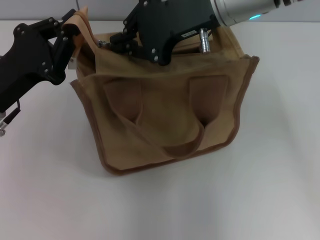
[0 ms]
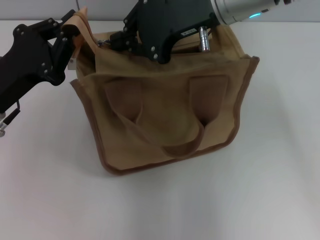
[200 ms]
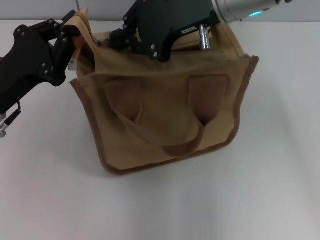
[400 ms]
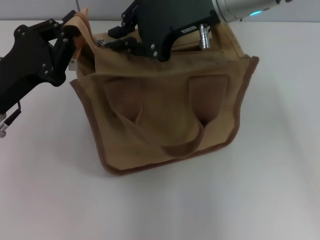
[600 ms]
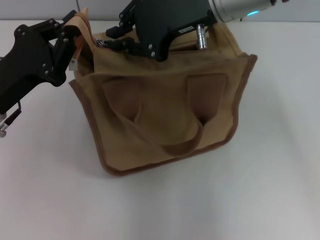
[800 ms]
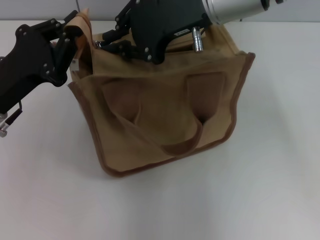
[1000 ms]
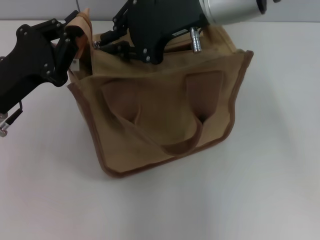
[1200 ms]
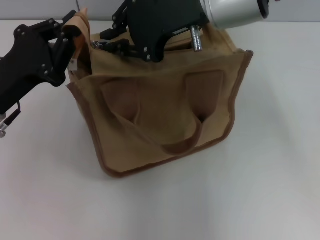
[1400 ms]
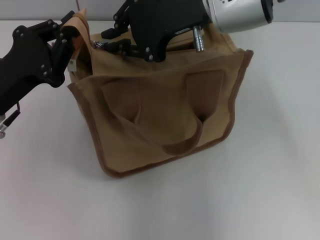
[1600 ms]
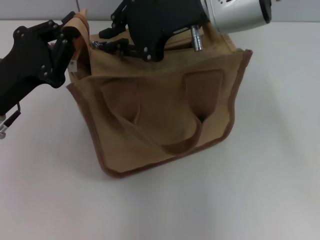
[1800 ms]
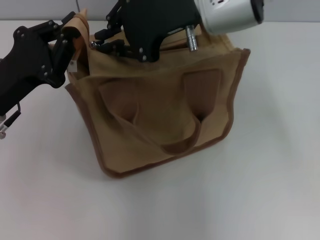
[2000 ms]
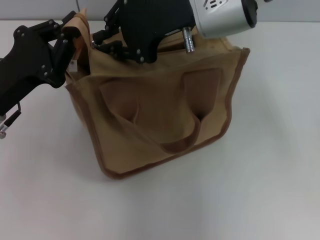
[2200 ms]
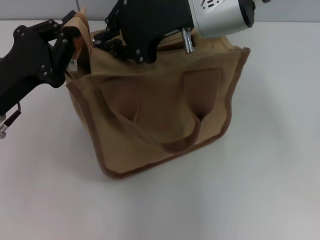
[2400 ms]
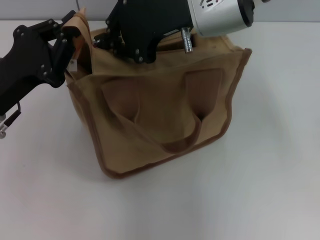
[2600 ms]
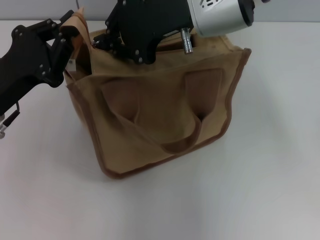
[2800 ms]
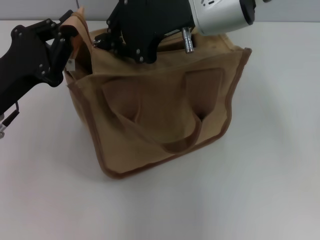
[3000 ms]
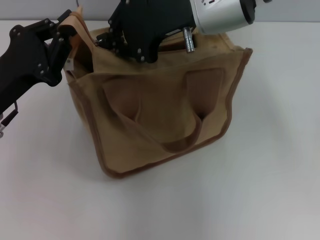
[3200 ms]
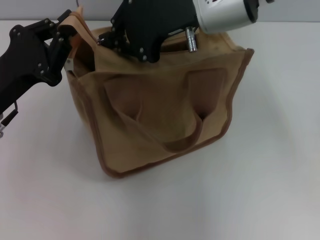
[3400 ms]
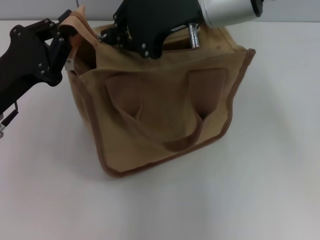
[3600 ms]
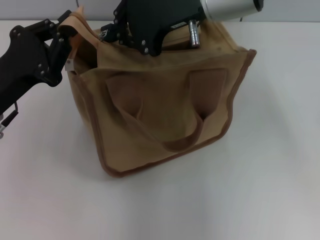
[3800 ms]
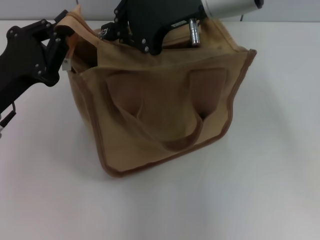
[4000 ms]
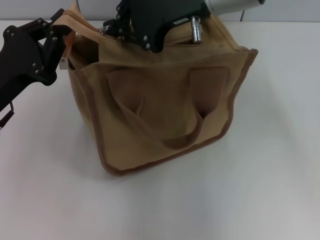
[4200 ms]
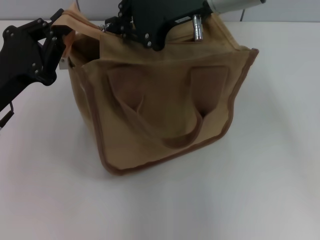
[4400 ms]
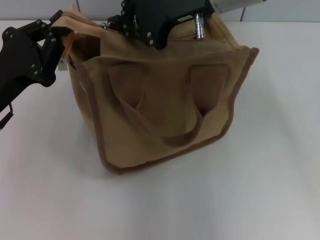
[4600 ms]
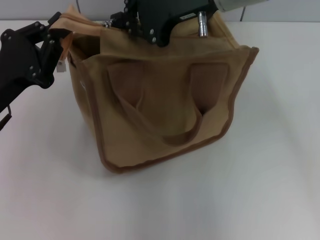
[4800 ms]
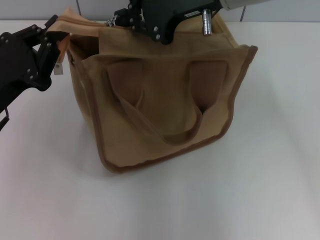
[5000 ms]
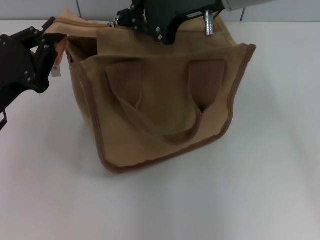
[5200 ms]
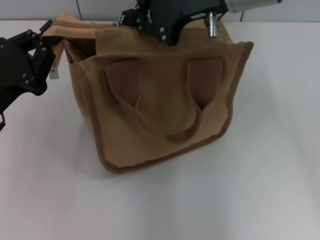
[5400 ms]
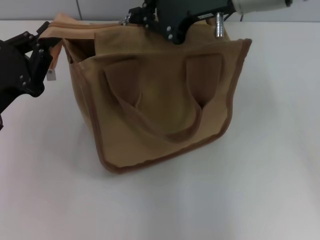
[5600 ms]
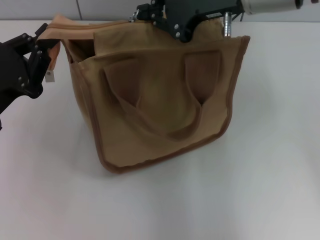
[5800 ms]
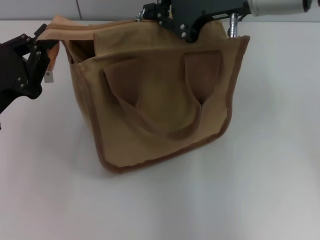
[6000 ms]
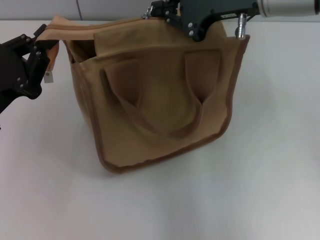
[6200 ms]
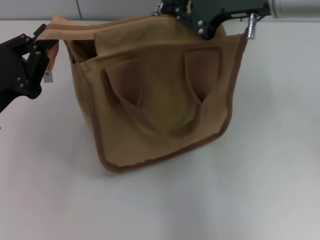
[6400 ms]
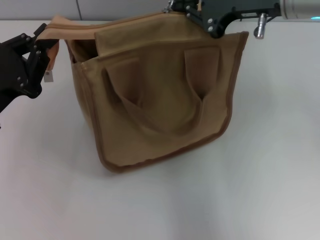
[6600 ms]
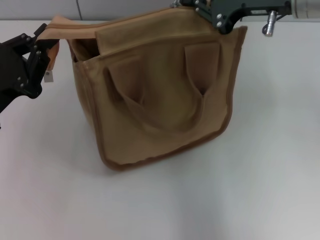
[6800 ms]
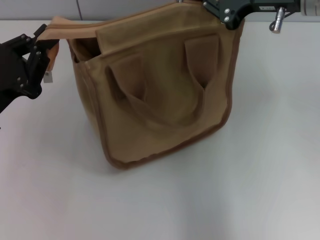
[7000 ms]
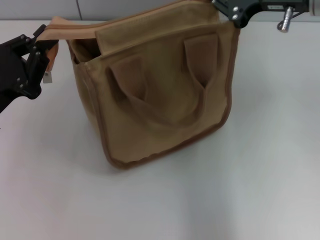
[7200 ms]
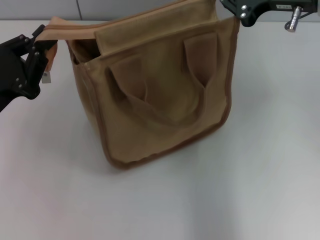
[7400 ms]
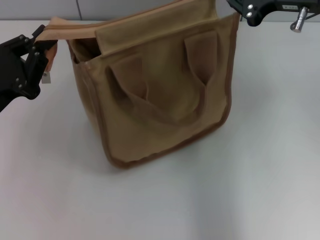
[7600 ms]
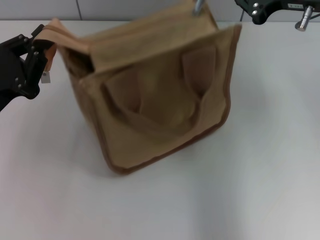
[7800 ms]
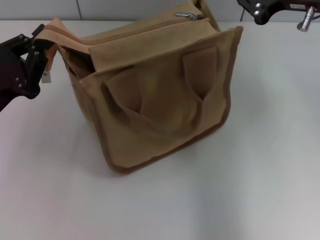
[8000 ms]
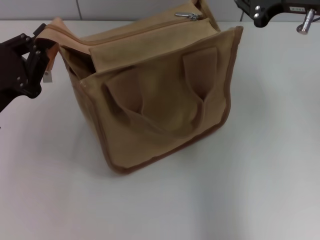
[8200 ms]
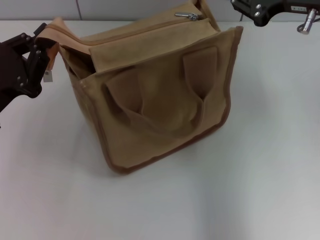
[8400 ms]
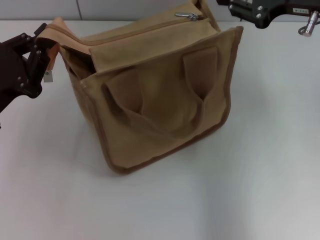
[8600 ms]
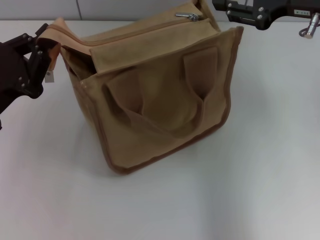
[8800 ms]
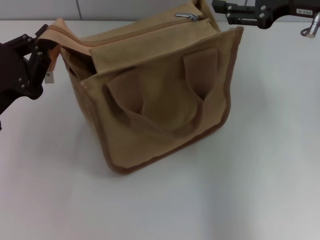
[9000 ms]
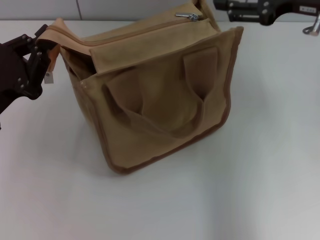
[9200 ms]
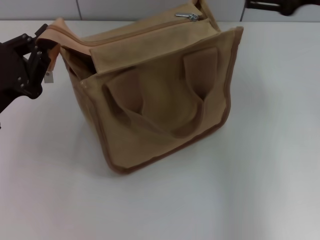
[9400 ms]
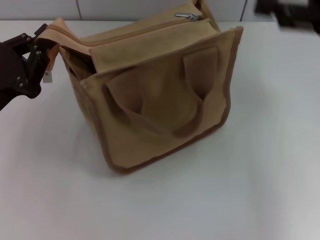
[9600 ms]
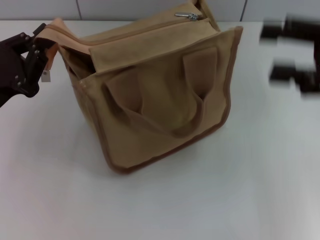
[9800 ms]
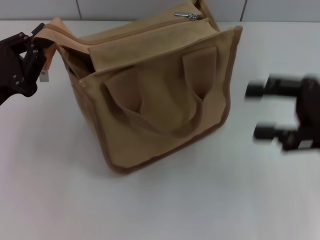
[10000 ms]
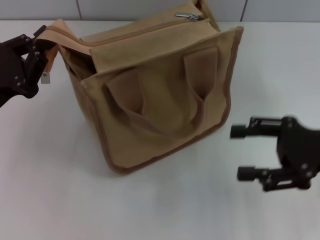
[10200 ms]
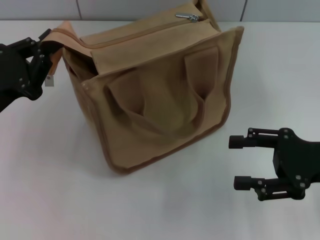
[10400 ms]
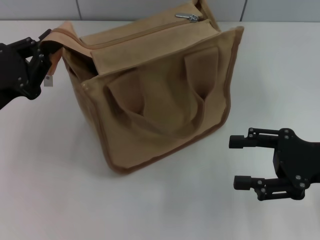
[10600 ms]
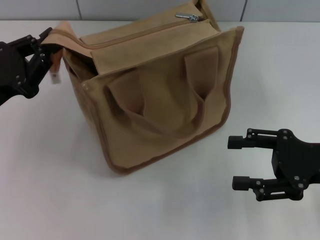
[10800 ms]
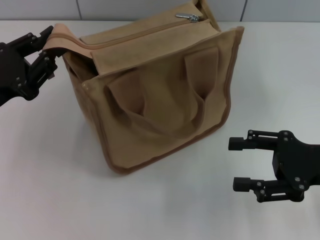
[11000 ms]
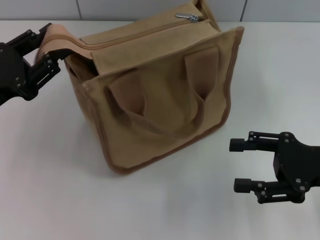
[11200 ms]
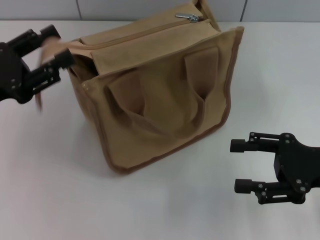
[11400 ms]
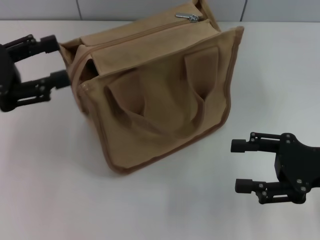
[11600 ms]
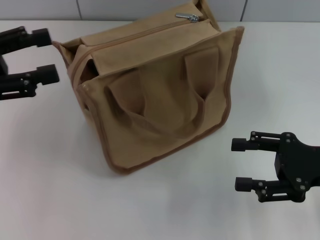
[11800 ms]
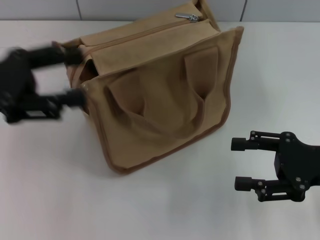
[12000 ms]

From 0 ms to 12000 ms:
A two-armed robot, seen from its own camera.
Step, from 0 ms to 7600 ms: Pull up the zipper with your right hand.
Step, from 8000 ms to 11400 ms: Grab the zipper with your left hand.
From 0 ms to 1600 ms: The grippers stay close to where they were, moving slightly.
From 1600 ms to 3000 ms: Neither gripper changes place.
From 3000 ms to 4400 ms: The grippers move only a little.
From 4400 ms to 6000 ms: The right gripper ends up approximately 5 cm from where it was.
From 6000 ms to 7600 ms: The right gripper heads to the right, covering about 10 cm.
From 7600 ms to 9000 ms: The right gripper opens up.
From 9000 ms to 10400 ms: The right gripper shifts approximately 15 cm downward and backward.
From 10400 ms to 12000 ms: The left gripper goes roughly 10 cm upward, and opens up.

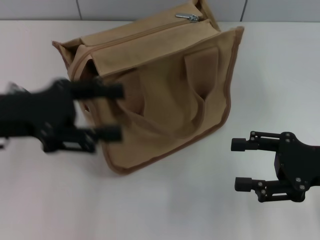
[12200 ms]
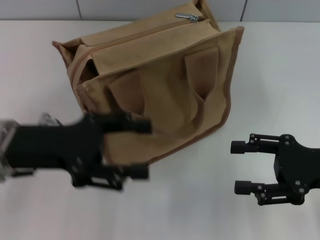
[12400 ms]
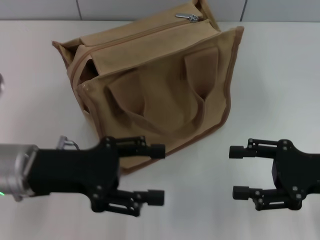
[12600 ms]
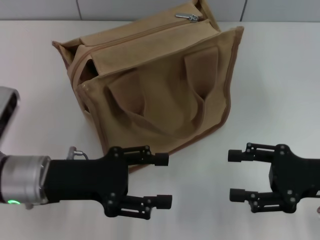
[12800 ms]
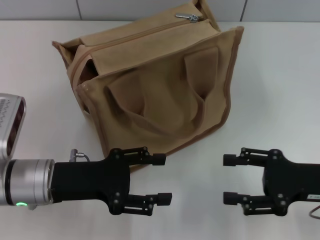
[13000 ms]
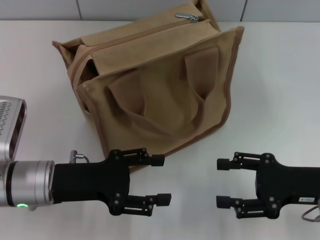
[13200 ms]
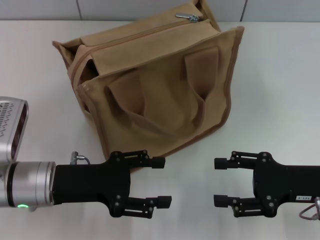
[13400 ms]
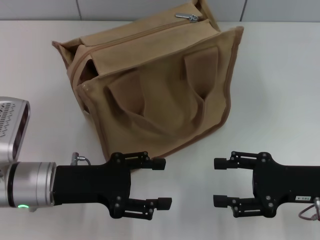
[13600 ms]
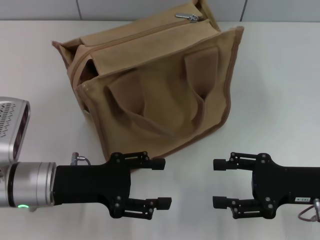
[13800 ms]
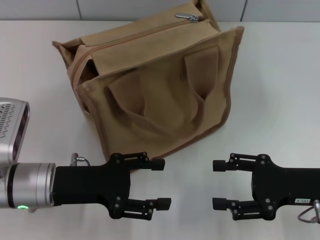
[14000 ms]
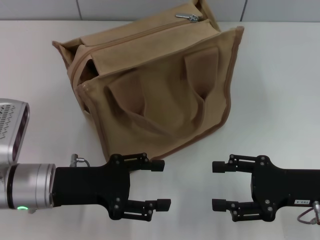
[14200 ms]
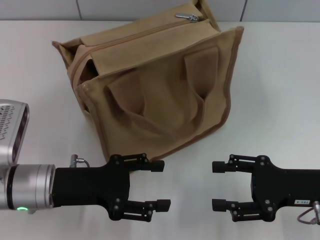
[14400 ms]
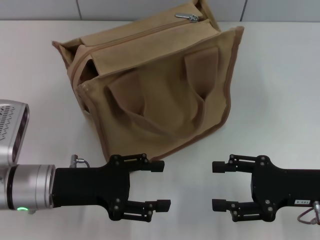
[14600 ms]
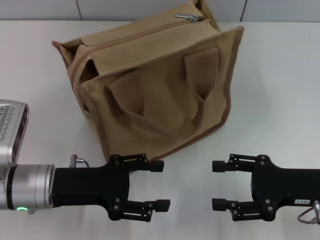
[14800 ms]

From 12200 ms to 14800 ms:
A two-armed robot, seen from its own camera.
From 12200 ms to 13400 ms: The left gripper shifts about 10 cm downward and to the right.
From 13400 ms to 14800 ms: Both grippers stay about where they are.

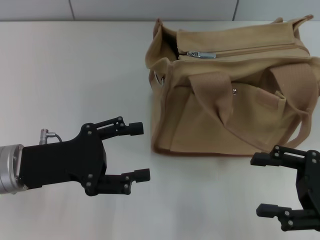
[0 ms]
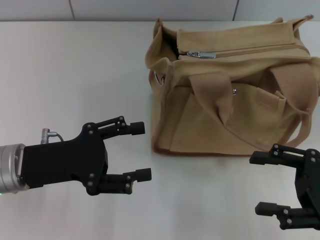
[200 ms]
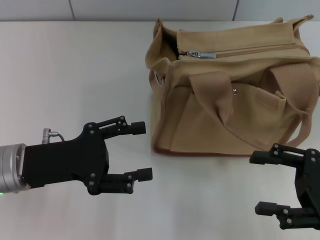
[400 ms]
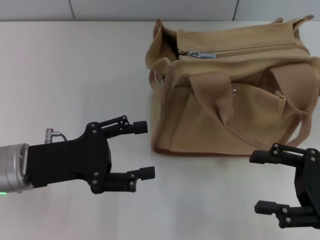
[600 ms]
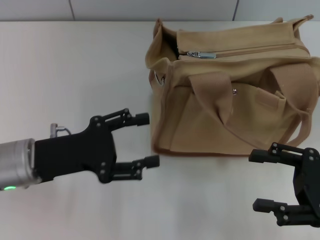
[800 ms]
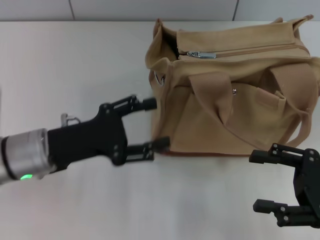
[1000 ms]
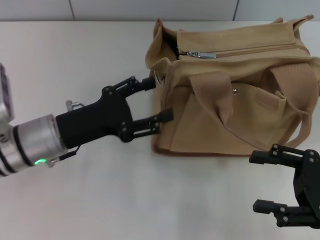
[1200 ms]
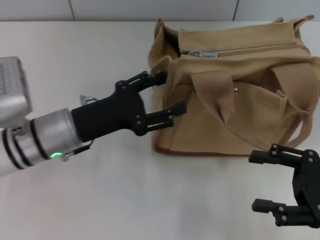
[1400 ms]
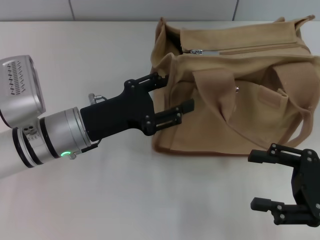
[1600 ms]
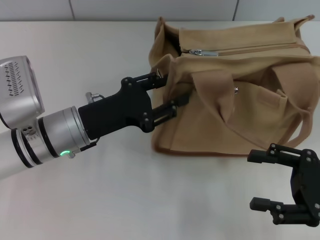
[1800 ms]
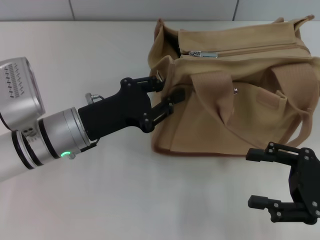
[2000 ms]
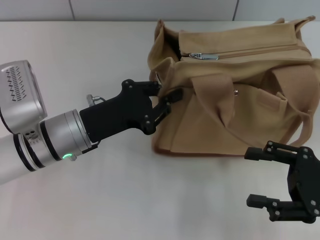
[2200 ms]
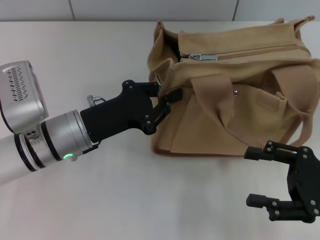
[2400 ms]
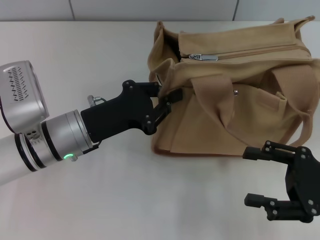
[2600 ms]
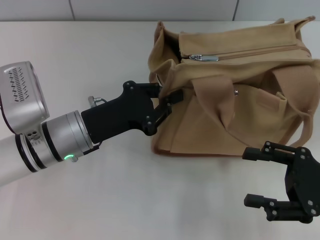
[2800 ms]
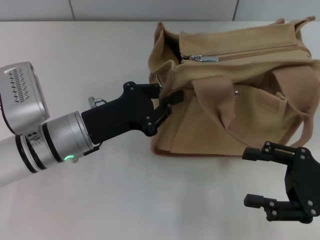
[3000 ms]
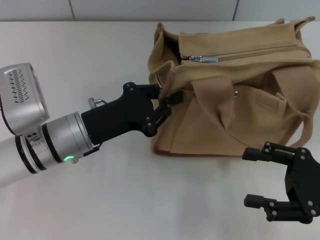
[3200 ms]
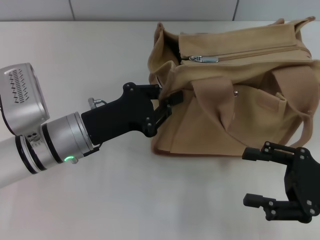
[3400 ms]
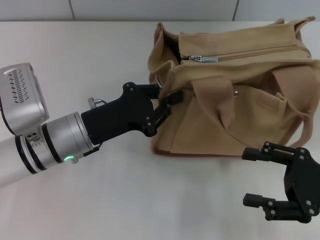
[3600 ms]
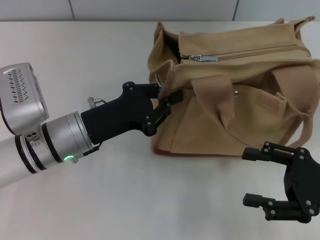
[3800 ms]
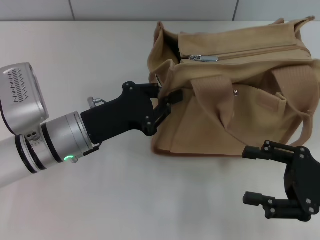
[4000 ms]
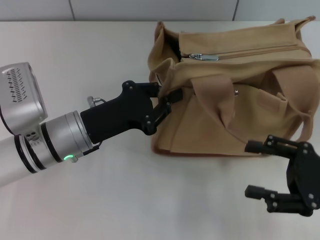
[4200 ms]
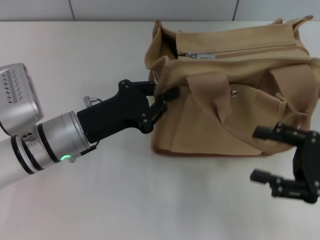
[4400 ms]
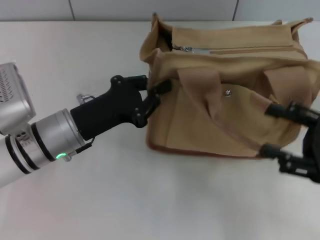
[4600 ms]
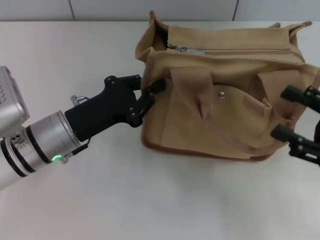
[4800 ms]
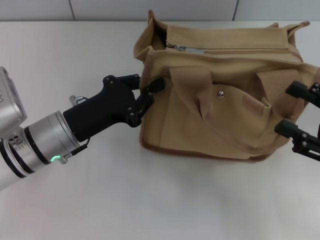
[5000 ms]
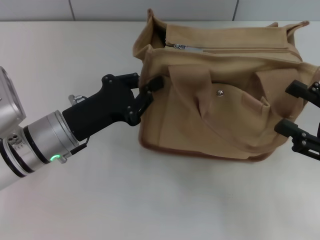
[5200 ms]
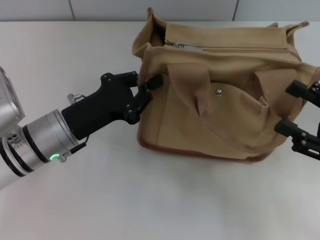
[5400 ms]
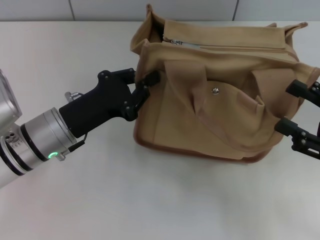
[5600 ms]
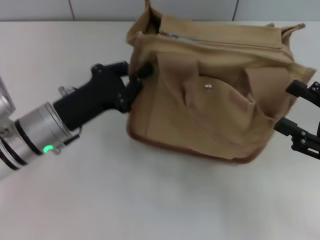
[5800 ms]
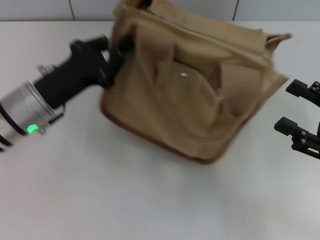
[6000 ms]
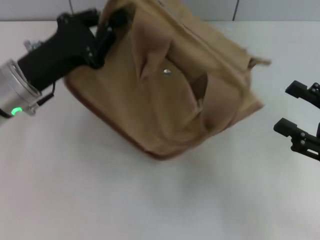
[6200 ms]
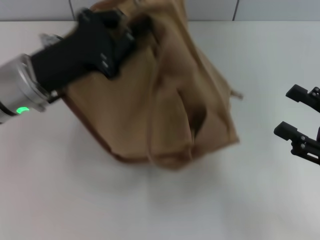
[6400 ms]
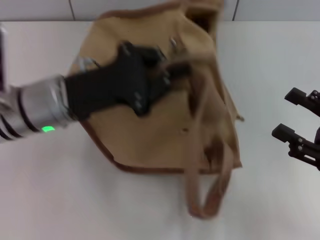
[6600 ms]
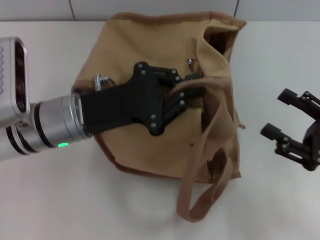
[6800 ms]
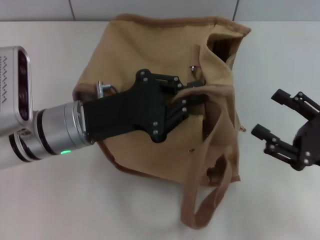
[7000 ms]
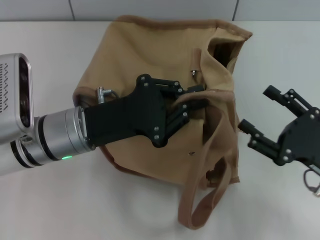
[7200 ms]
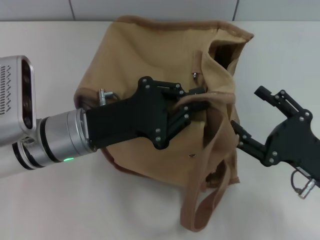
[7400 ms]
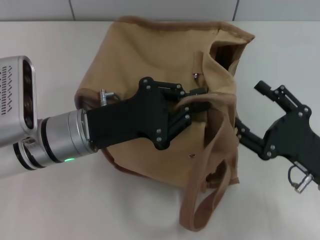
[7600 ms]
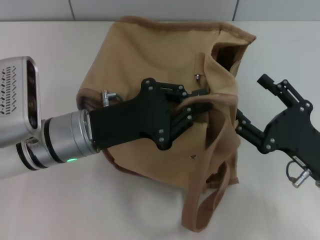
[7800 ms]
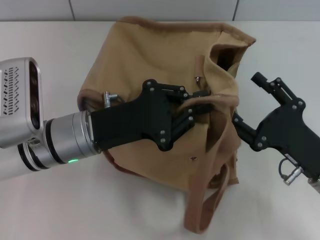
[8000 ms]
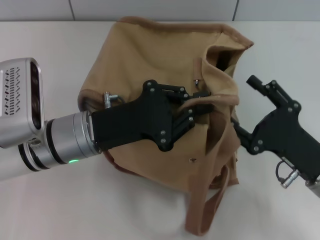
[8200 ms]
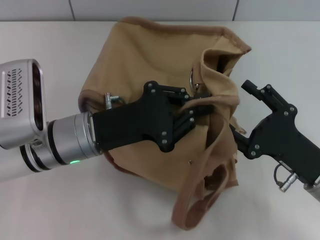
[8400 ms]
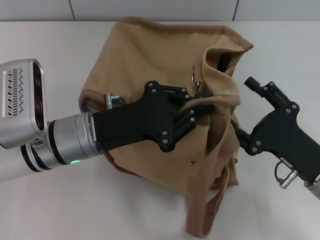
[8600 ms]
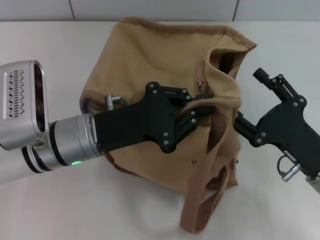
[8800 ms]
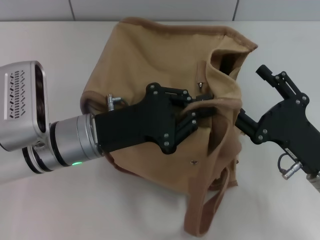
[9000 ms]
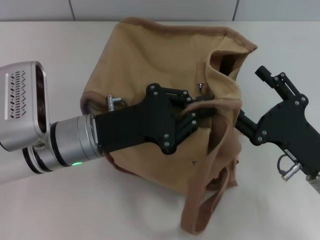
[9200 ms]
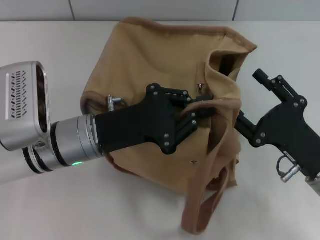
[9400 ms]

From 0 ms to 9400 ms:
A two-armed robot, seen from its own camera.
From 0 ms to 1600 ms: The left gripper travels to the right and forward by approximately 10 cm.
From 1600 ms to 3200 ms: The left gripper closes.
From 4800 ms to 6200 ms: The left gripper goes roughly 5 cm upward.
From 6200 ms to 7800 ms: The right gripper travels to the left by some 5 cm. Meanwhile the left gripper moves to the right, approximately 5 cm.
From 7800 ms to 9400 ms: There are only small adjustments of the grippers.
